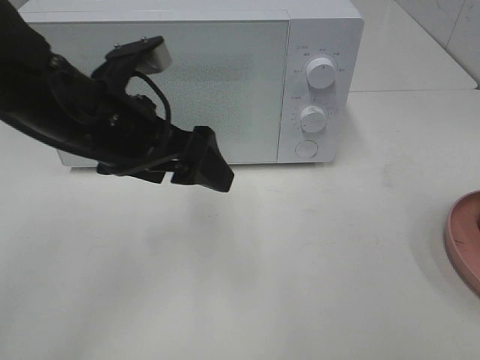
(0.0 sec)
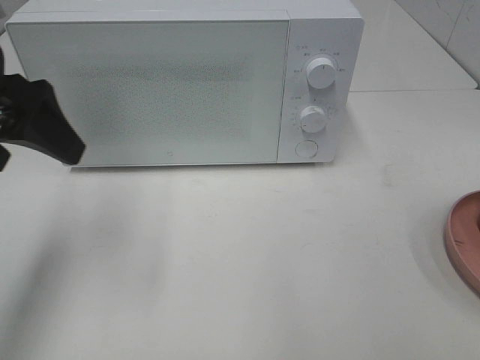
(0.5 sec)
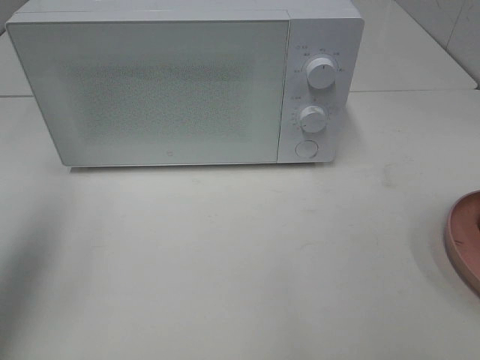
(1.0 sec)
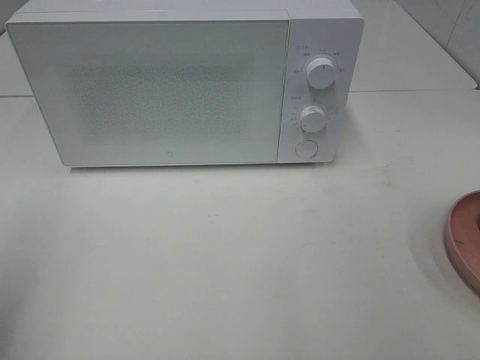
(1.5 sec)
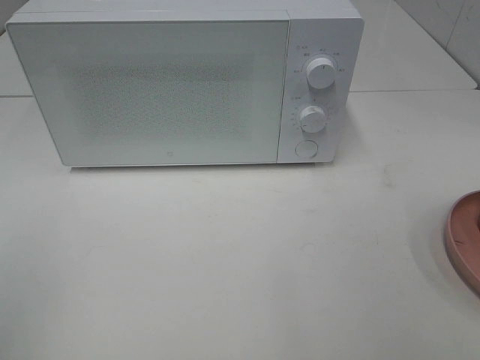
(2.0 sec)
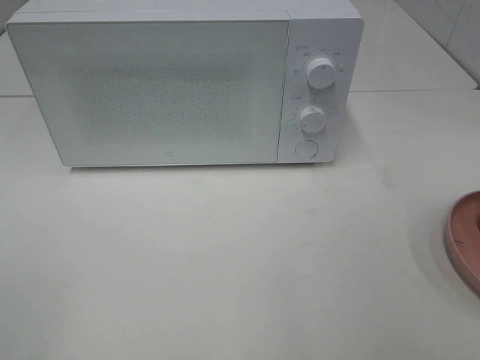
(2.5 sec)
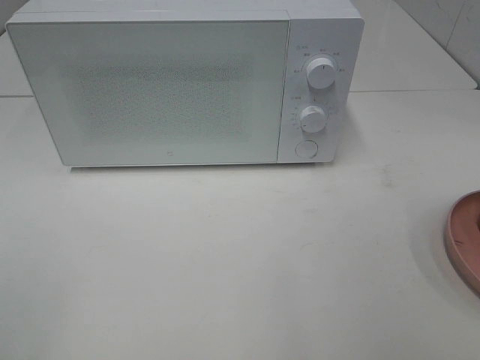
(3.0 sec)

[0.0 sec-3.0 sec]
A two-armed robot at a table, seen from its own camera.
Task of the whole recording: Heat the burger.
0.0 sec to 1.5 sec: The left gripper is displaced to the left and backward by about 25 cm.

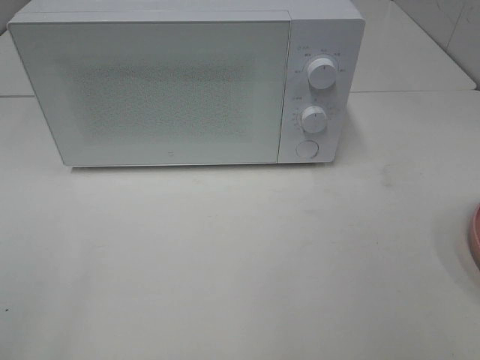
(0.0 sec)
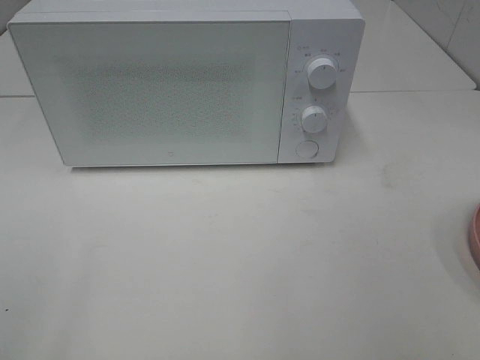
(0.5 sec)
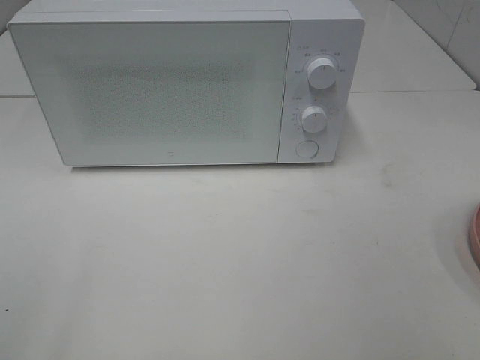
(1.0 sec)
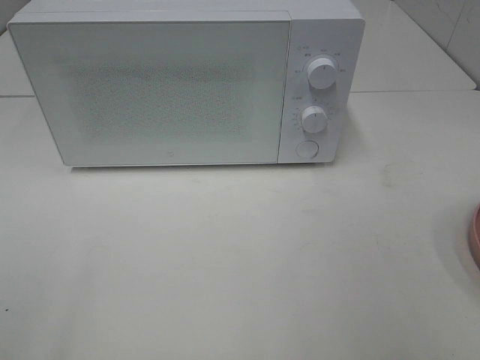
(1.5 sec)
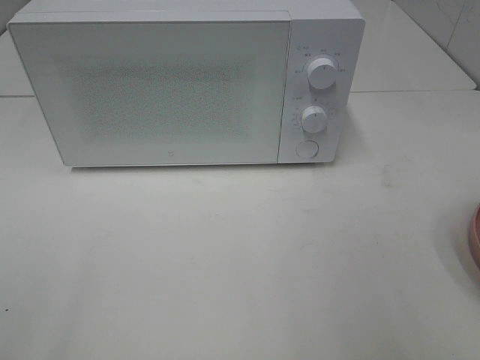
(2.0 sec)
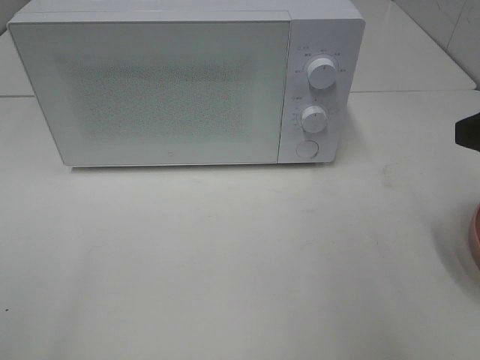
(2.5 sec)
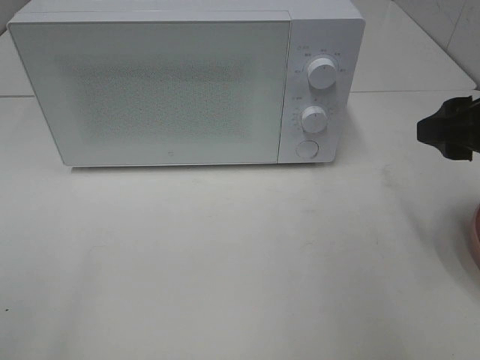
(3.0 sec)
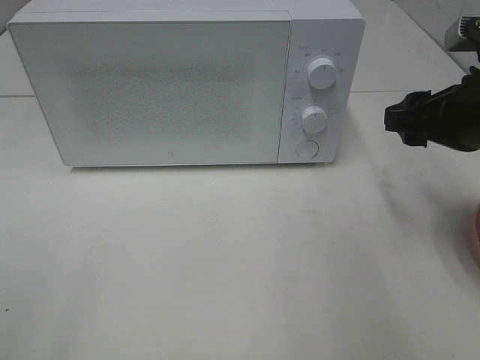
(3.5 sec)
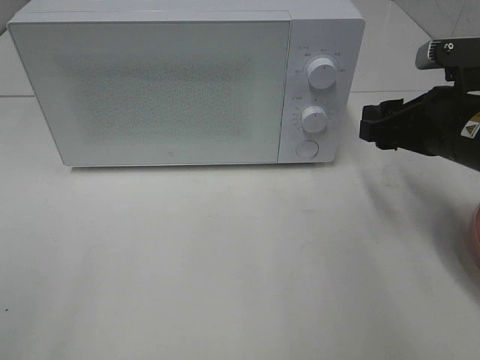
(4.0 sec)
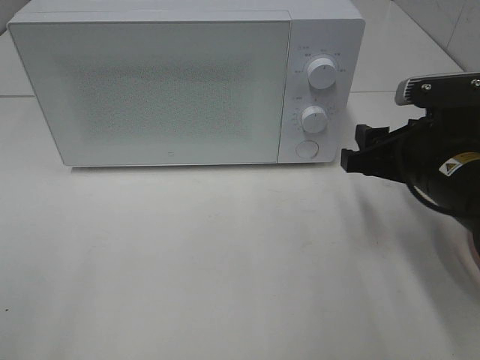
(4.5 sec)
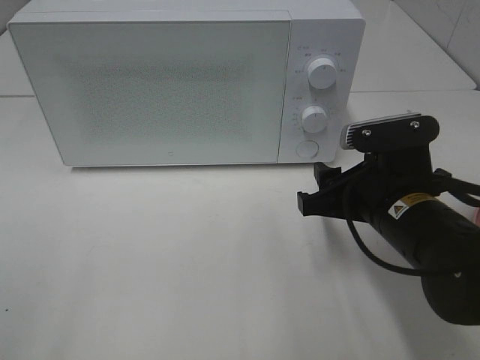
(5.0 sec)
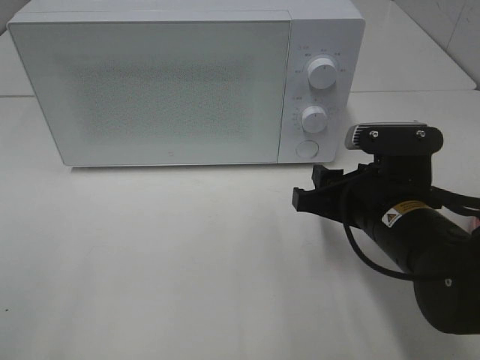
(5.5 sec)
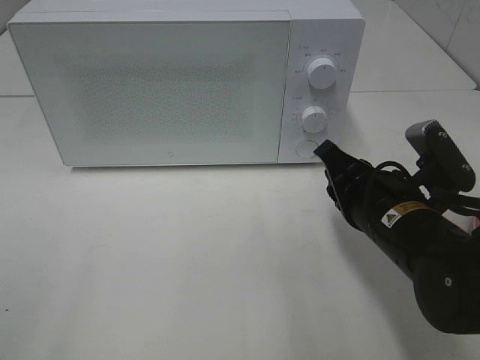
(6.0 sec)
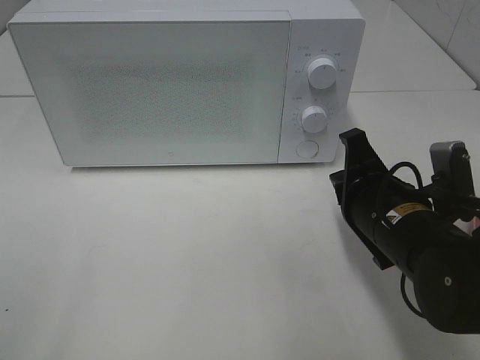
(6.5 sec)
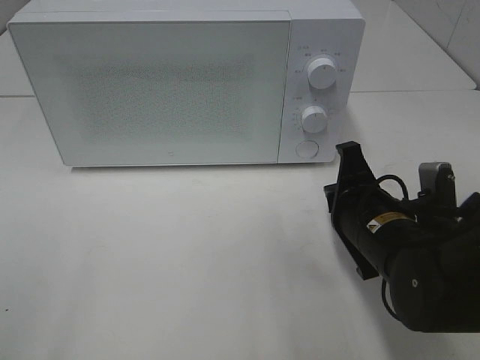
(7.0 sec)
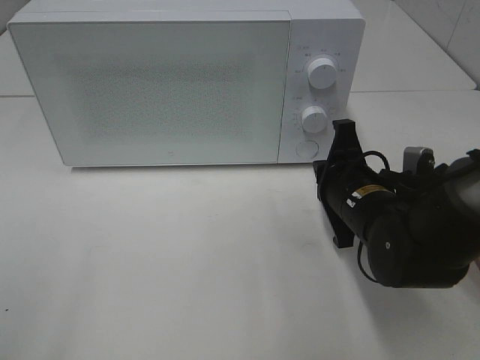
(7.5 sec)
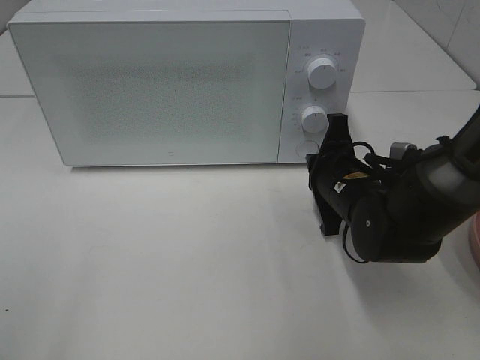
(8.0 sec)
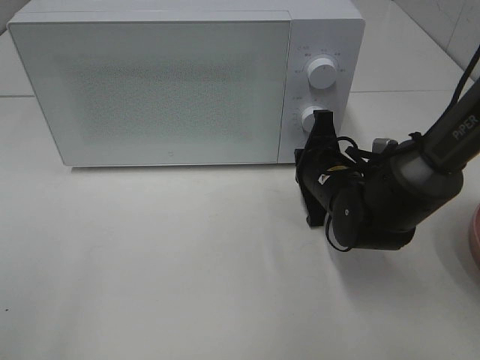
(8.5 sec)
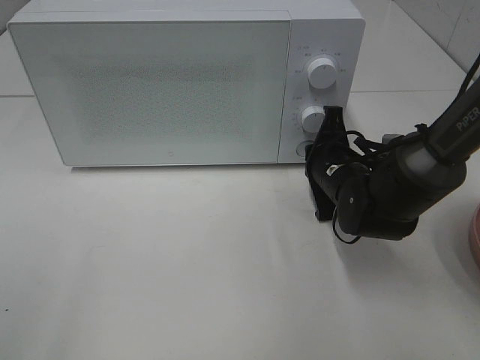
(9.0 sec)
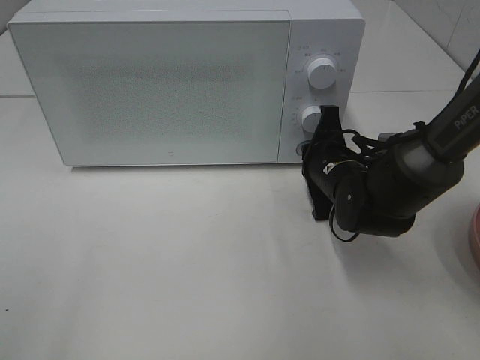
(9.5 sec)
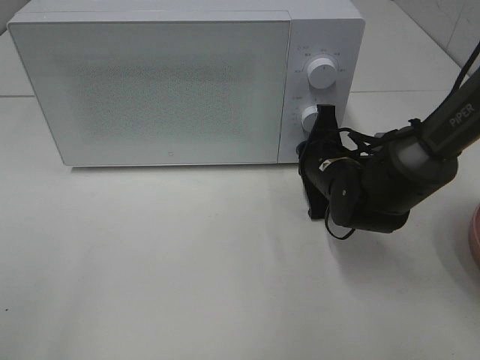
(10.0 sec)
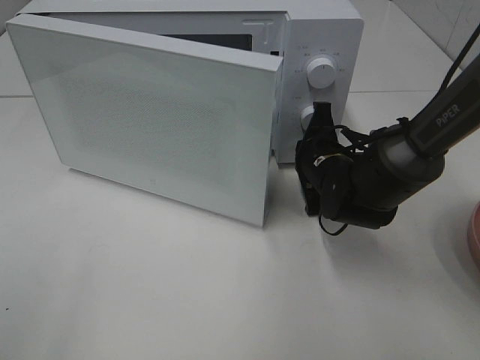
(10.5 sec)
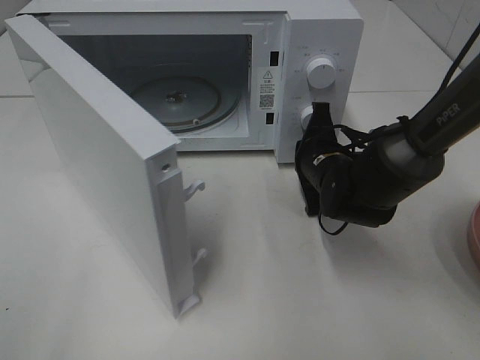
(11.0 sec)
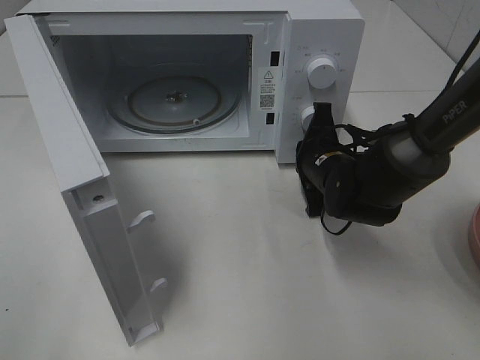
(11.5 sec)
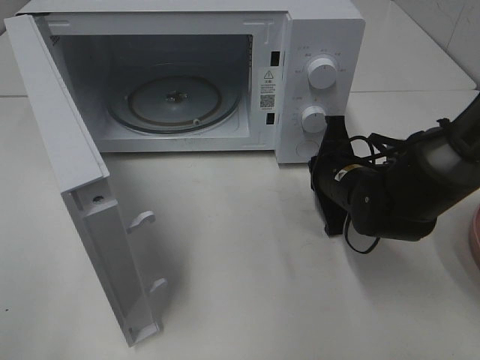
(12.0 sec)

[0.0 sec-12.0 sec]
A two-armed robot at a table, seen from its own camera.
Task of the whole recording: Heat the burger.
Step, 0.0 sec to 12.0 sec: Right hand: press the switch.
2.0 sec to 4.0 sec: The right gripper moves forward and downward, approximately 20 cm.
4.0 sec to 6.0 sec: The right gripper heads to the left, downward and backward, covering approximately 10 cm, and closes.
6.0 sec to 8.0 sec: The right gripper shifts approximately 10 cm forward.
8.0 sec to 10.0 sec: There are only small adjustments of the grippers.

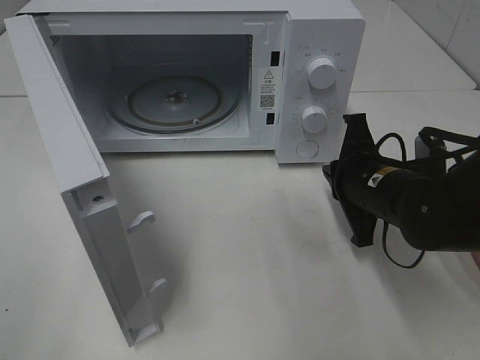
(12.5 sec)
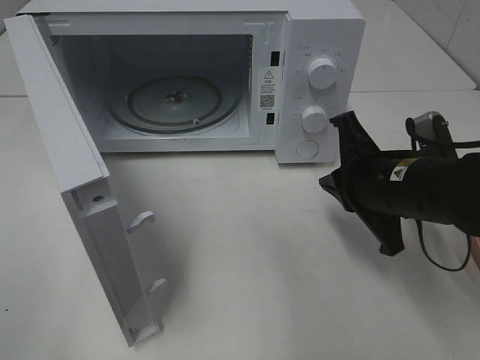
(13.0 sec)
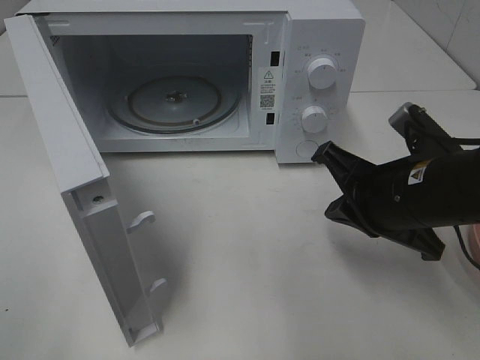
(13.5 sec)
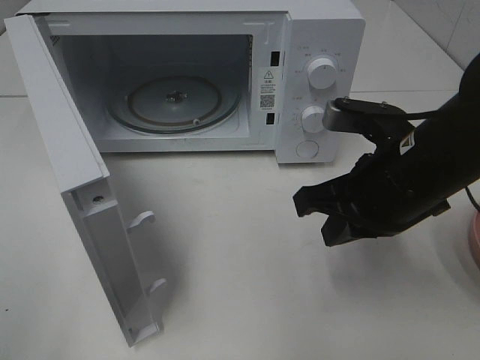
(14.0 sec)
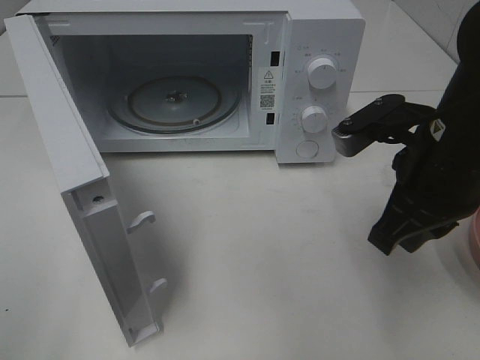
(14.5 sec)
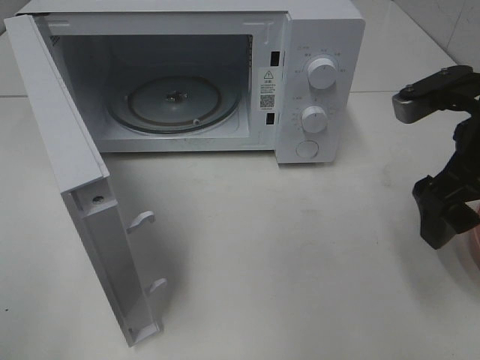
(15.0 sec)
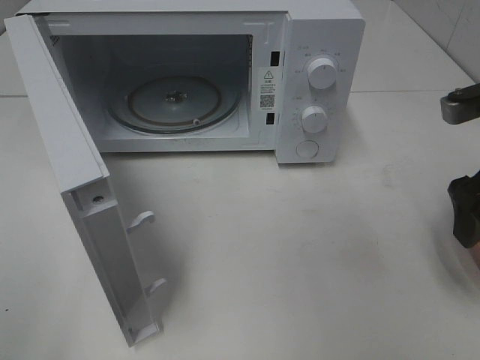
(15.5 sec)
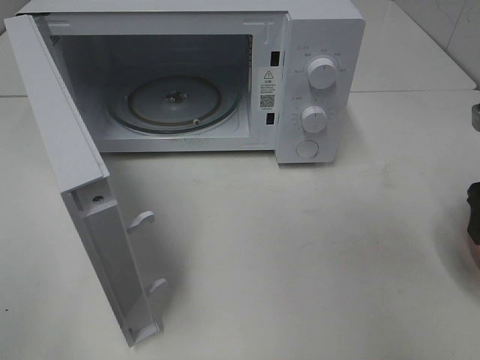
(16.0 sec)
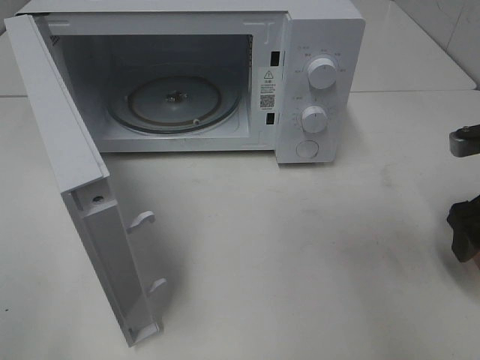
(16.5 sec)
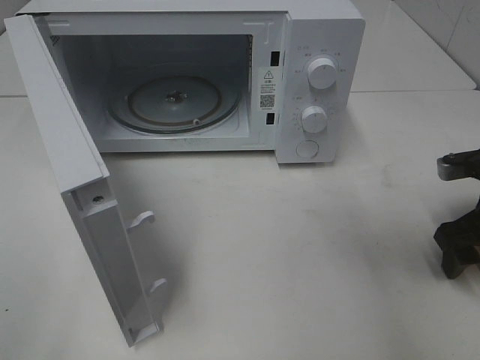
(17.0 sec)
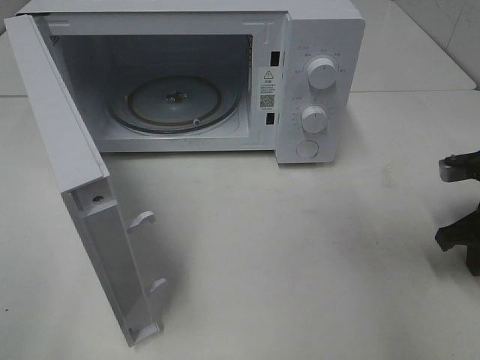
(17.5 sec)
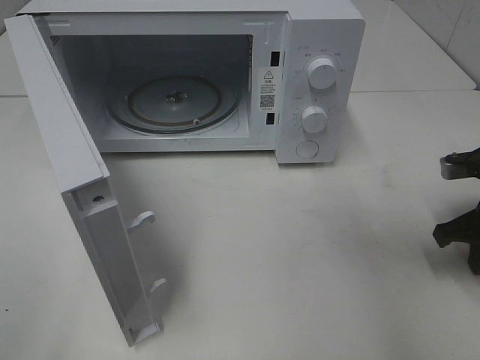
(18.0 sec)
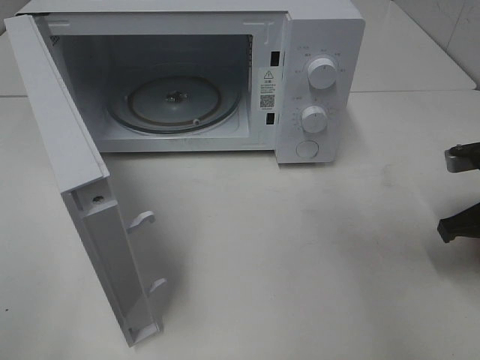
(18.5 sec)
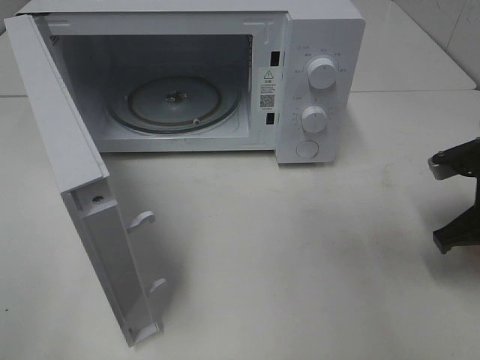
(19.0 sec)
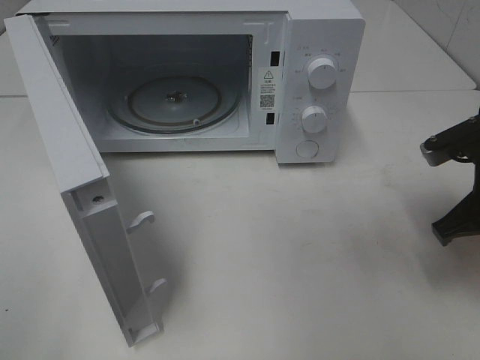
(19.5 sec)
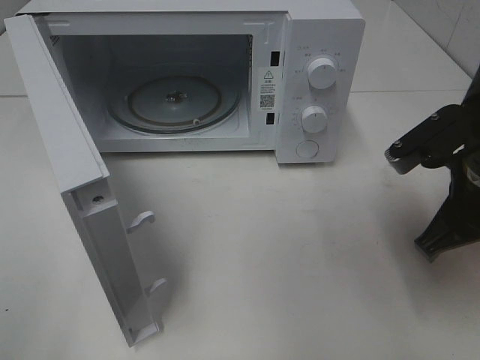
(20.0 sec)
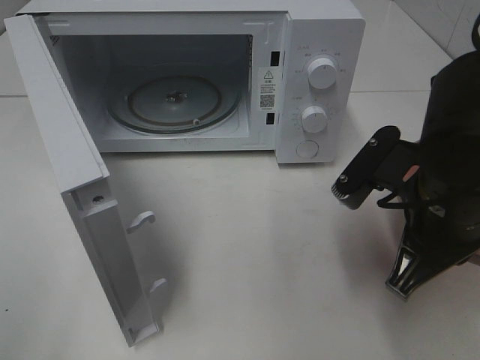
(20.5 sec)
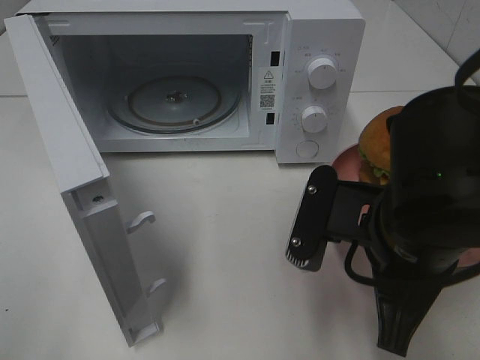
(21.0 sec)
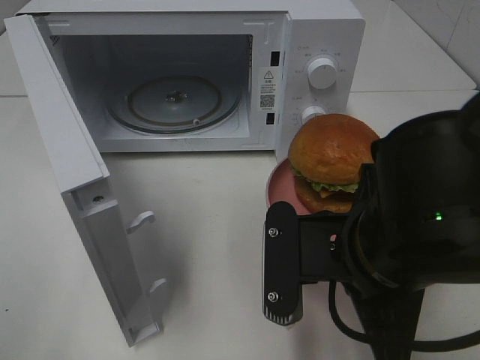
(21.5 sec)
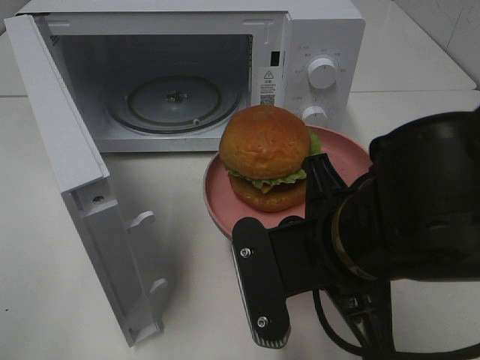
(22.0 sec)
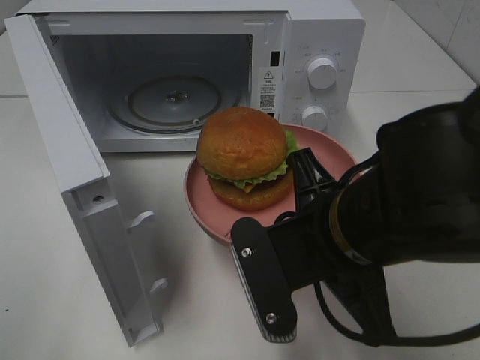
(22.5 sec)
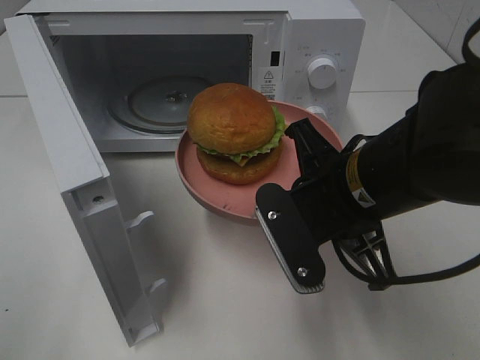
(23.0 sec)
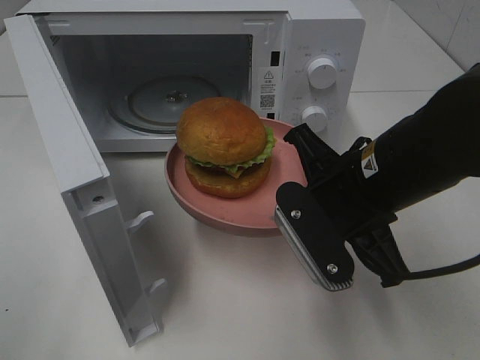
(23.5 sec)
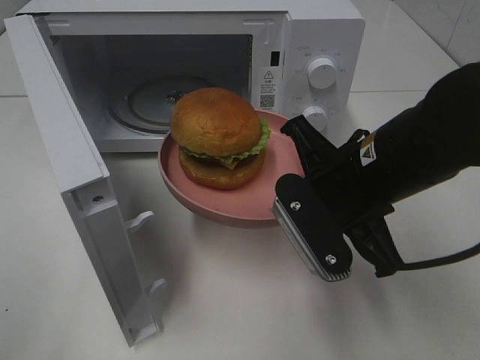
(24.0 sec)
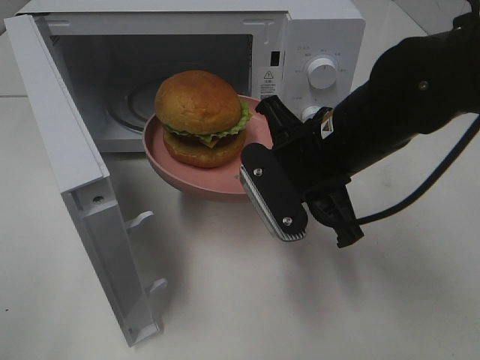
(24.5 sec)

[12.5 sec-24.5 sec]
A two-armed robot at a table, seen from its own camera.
Task of the whole recording: Heat the burger.
Step, 12.5 sec to 18.5 sec: Right hand: grab the plate with the hamburger.
12.5 sec to 14.5 sec: The right gripper is displaced upward and backward by approximately 10 cm.
14.5 sec to 16.5 sec: The right gripper heads to the right and downward, covering about 15 cm, and opens.
16.5 sec to 18.5 sec: The right gripper closes.
18.5 sec to 20.5 sec: The right gripper moves to the left and backward, roughly 15 cm.
20.5 sec to 22.5 sec: The right gripper heads to the left, covering some 10 cm.
22.5 sec to 24.5 sec: The right gripper moves forward, some 10 cm.
